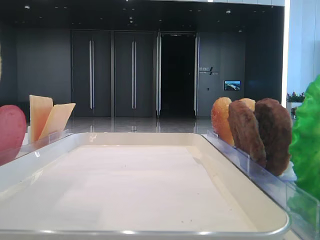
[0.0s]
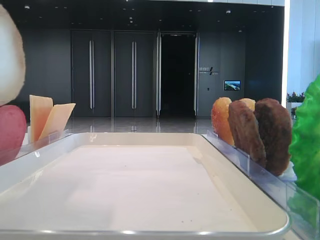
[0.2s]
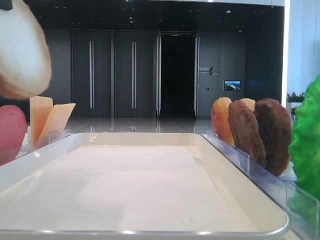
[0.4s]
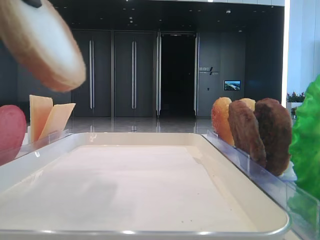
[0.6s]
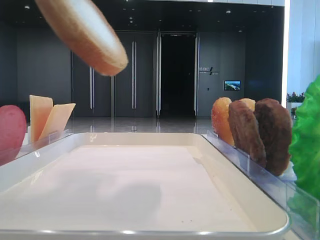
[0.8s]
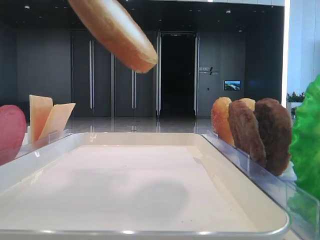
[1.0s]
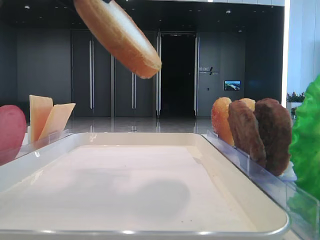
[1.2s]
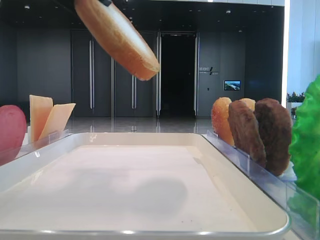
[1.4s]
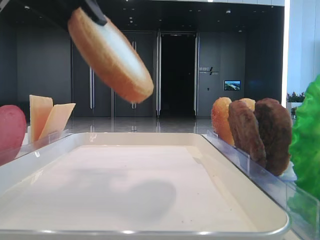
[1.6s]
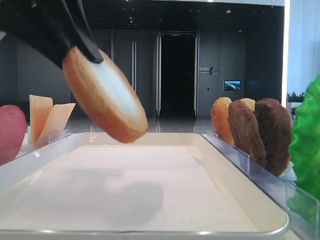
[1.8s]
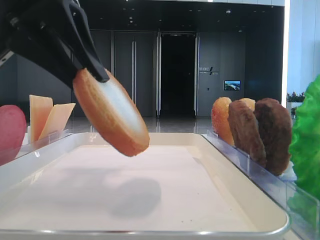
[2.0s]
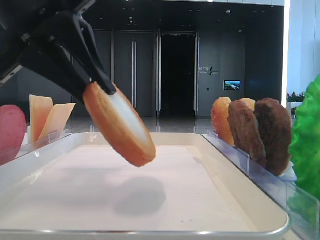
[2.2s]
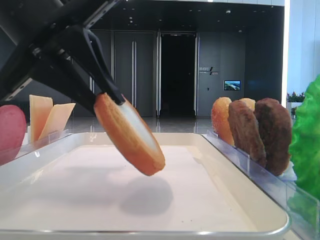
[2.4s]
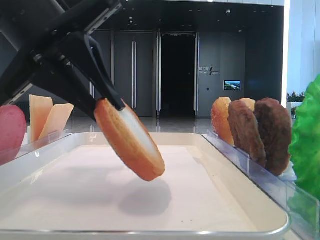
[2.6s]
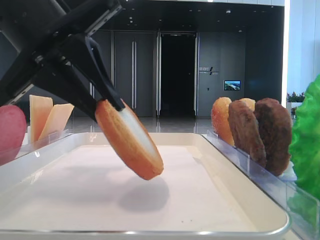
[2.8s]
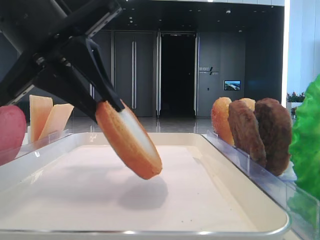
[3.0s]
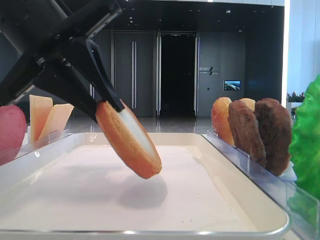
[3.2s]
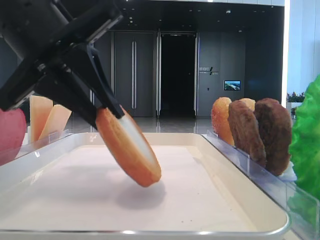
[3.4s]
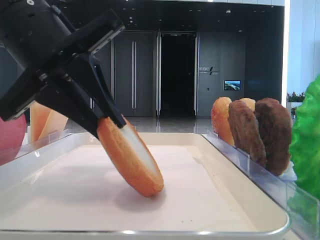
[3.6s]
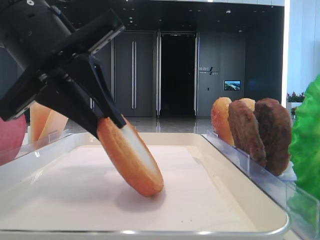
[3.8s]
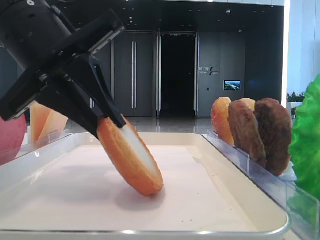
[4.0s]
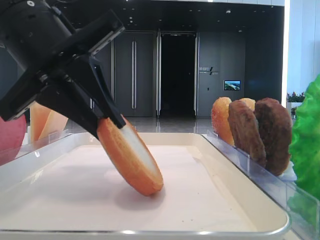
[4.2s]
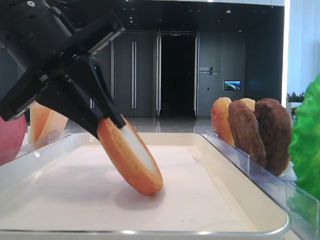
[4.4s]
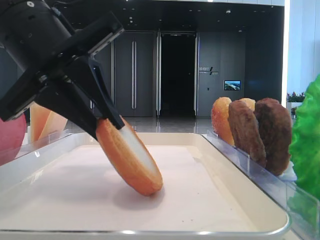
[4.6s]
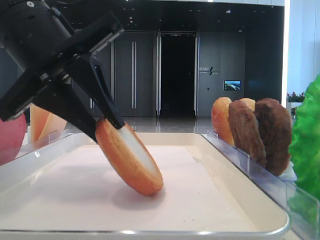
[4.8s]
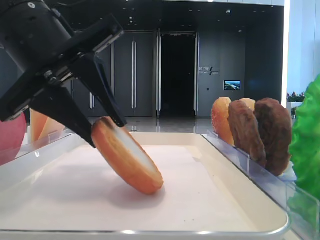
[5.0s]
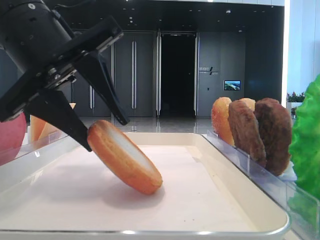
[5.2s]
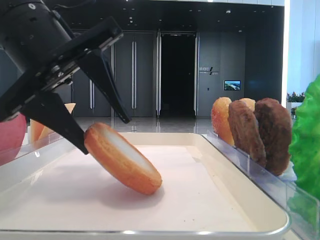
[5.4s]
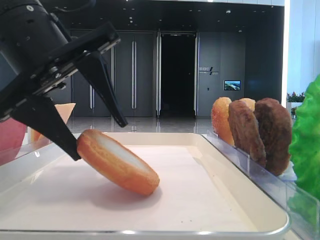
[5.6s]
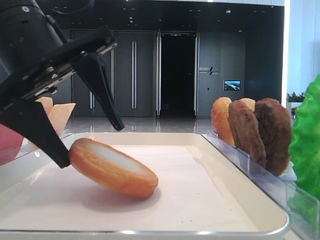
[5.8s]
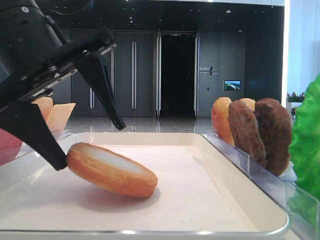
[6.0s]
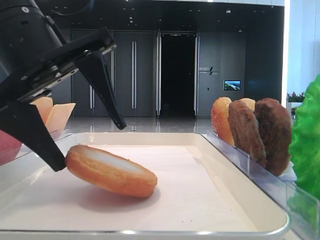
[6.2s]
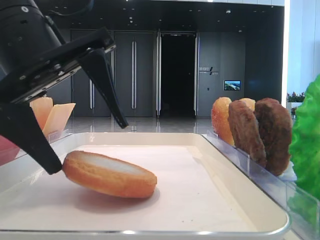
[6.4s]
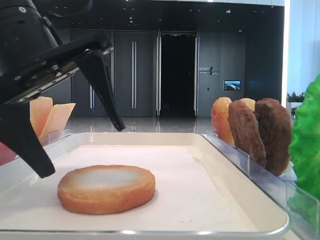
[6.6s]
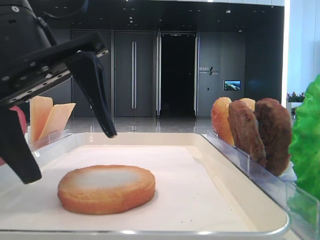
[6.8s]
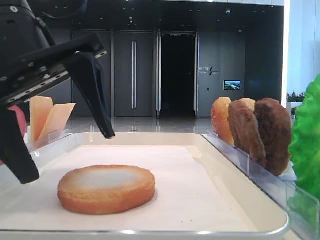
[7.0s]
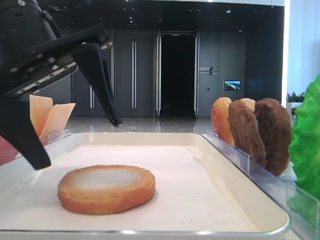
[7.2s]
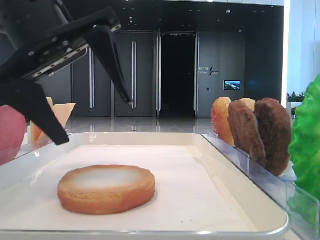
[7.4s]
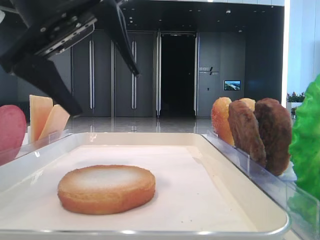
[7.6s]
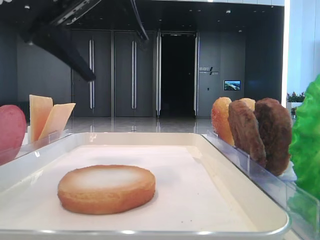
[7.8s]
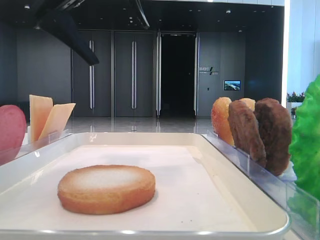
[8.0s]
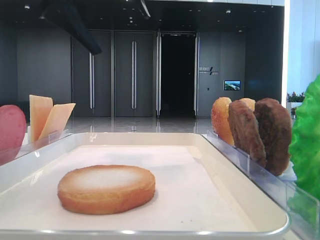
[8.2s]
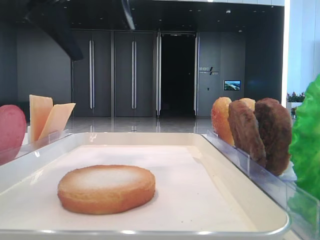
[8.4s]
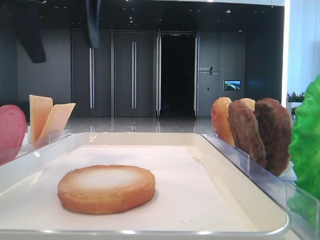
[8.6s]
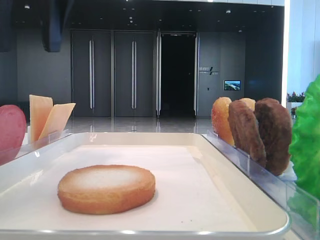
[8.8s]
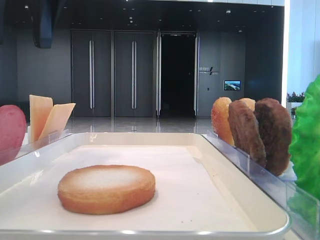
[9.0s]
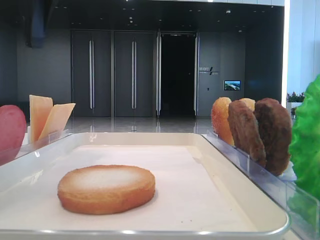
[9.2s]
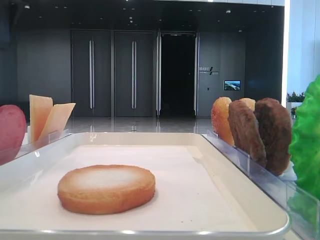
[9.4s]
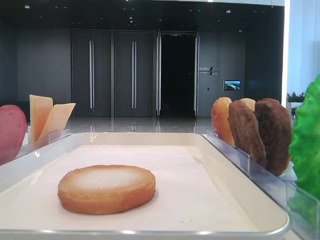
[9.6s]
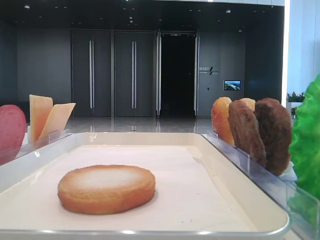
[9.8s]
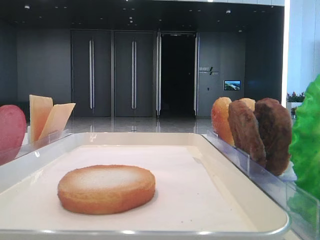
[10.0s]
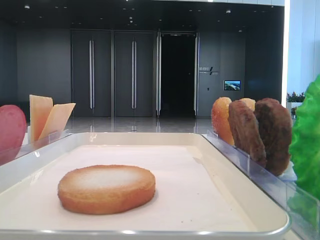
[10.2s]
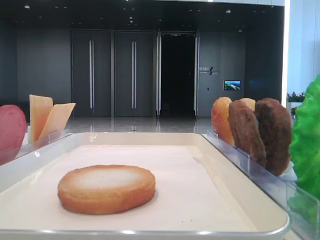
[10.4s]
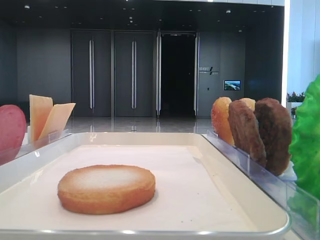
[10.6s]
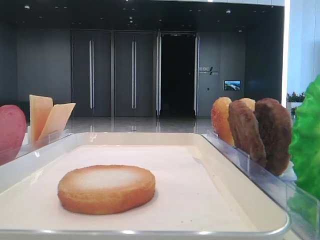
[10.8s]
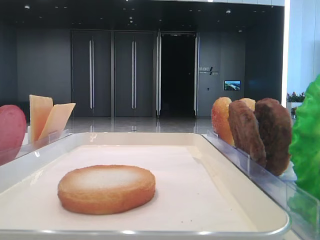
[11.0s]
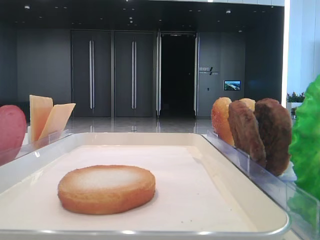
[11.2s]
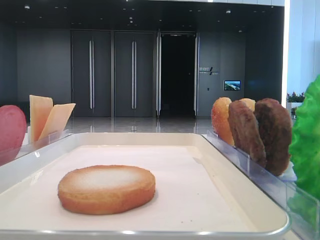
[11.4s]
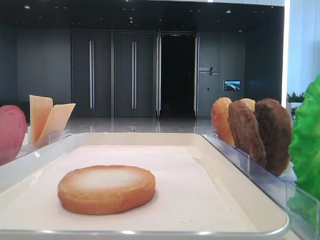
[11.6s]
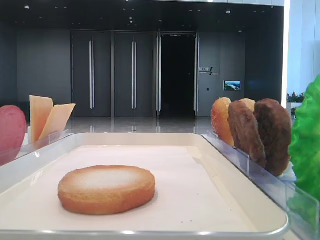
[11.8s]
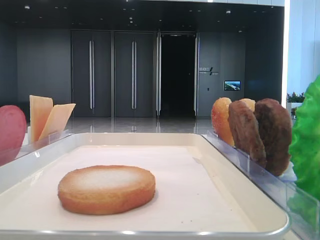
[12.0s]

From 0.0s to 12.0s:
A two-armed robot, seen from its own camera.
Step, from 0.0s to 6.4s: Place the bread on the tray with the left hand.
From 0.0s to 1.6s: The left gripper moves roughly 5 cm.
From 1.6s to 3.0s: The left gripper goes approximately 5 cm downward.
From 3.0s to 4.4s: The grippers move only a little.
From 4.4s to 6.0s: The left gripper opens its fingers.
From 6.0s to 7.6s: The left gripper is displaced upward by some 5 cm.
From 7.6s to 9.0s: The left gripper moves upward, about 10 cm.
From 9.0s to 10.4s: The left gripper moves to the left, approximately 15 cm.

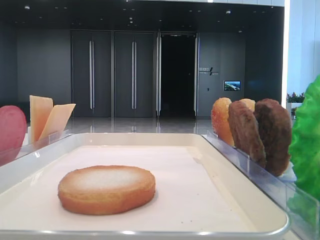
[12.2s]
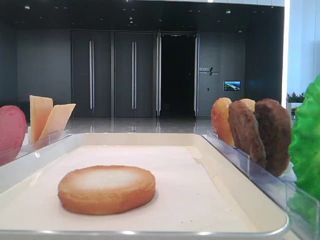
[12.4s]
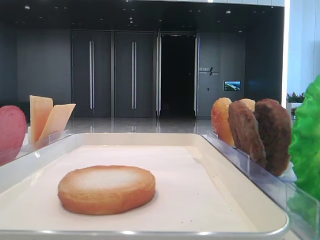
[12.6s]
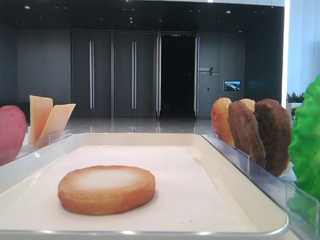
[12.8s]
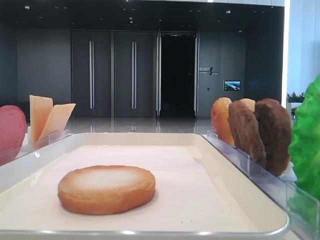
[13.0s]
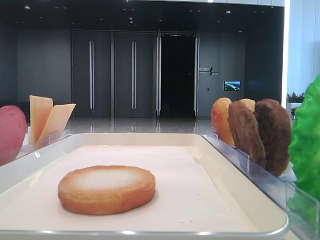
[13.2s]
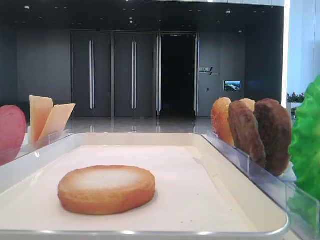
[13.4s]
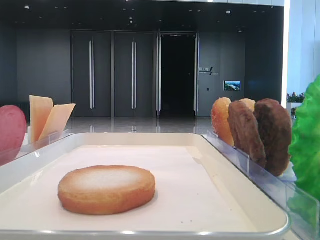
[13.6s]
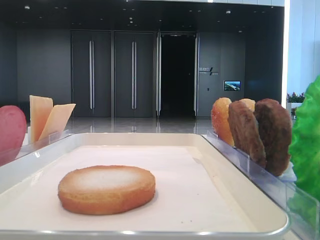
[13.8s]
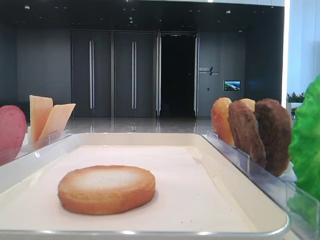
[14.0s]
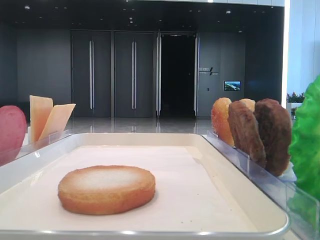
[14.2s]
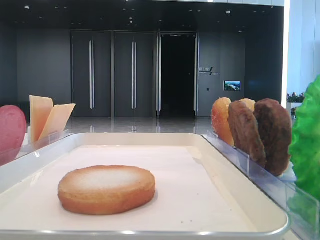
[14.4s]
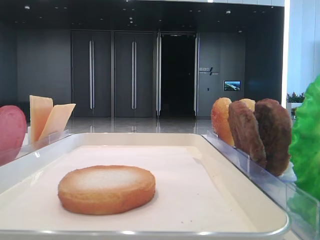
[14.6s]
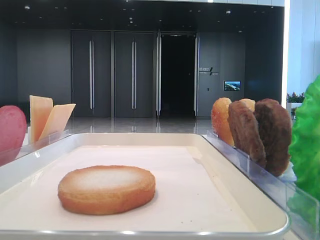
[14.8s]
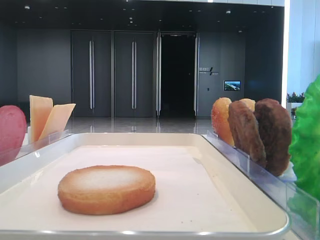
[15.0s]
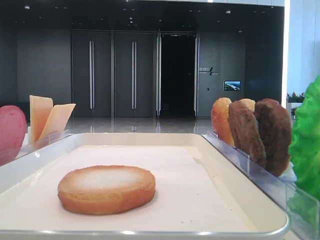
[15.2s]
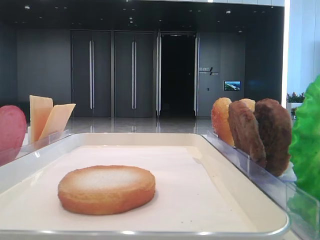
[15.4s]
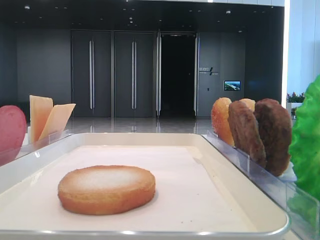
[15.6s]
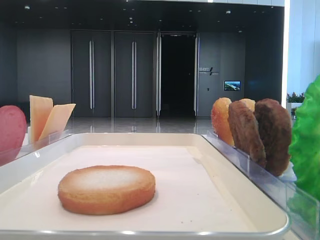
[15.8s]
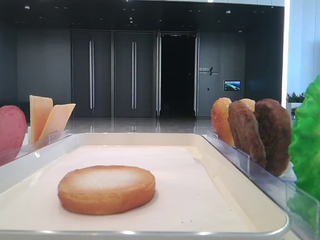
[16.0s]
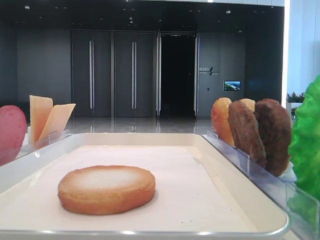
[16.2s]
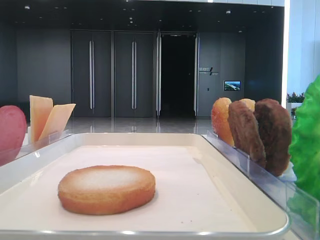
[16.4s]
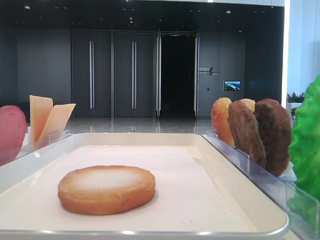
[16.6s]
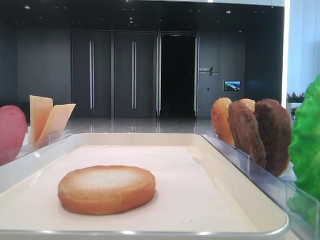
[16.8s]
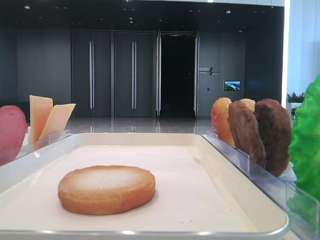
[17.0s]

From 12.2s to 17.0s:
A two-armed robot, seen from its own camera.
From 13.8s to 17.0s: Both grippers stay about where they are.
